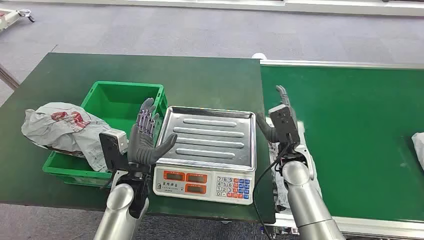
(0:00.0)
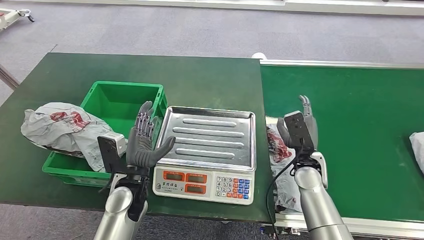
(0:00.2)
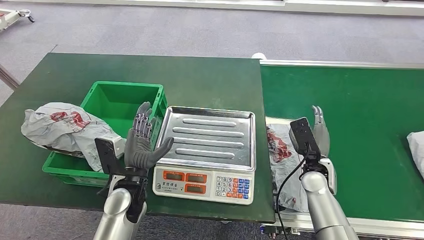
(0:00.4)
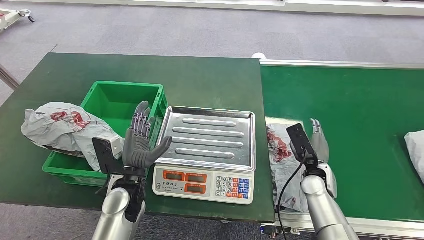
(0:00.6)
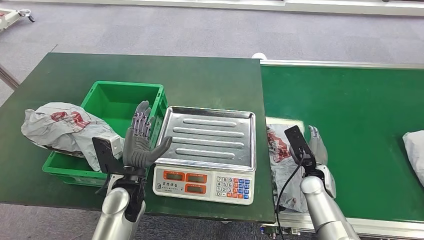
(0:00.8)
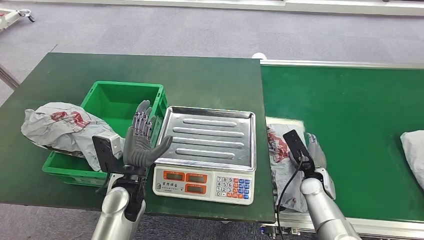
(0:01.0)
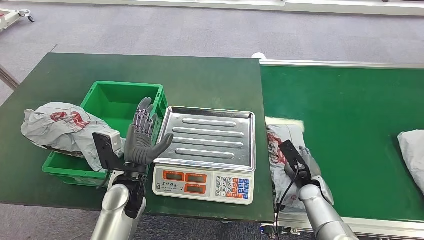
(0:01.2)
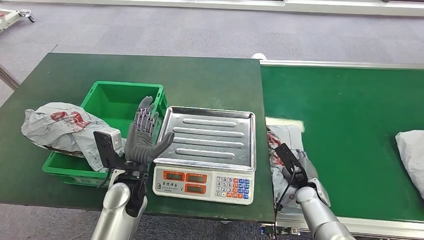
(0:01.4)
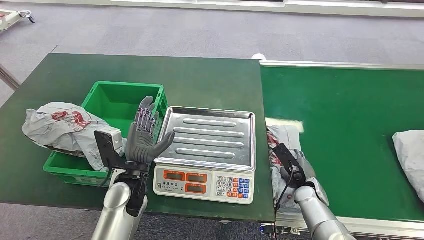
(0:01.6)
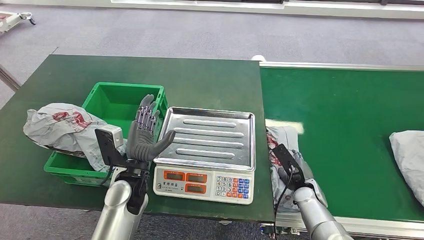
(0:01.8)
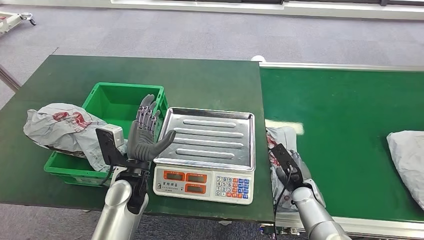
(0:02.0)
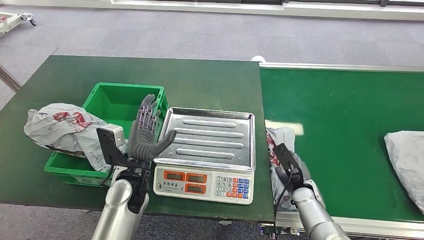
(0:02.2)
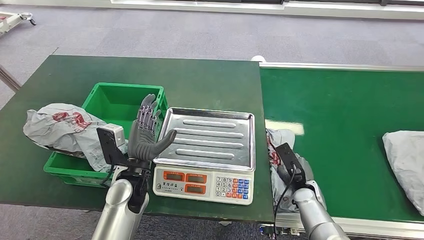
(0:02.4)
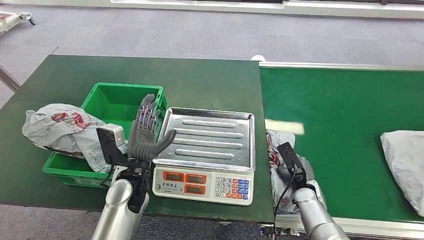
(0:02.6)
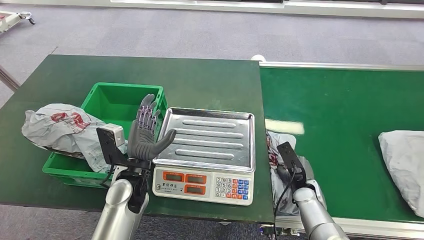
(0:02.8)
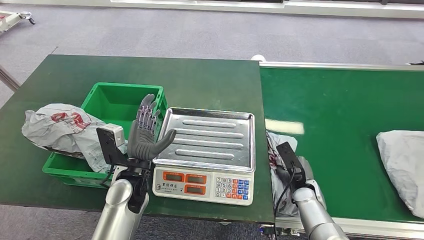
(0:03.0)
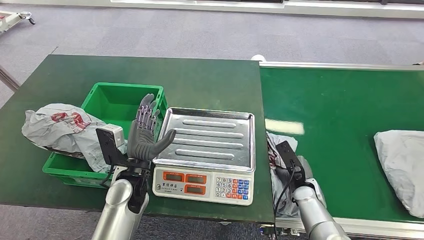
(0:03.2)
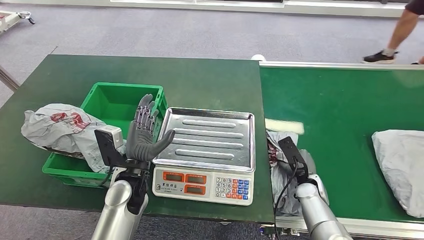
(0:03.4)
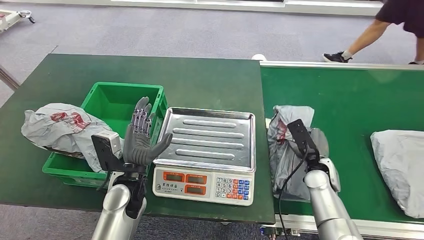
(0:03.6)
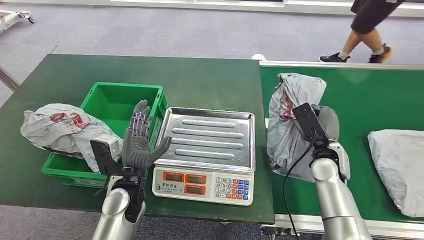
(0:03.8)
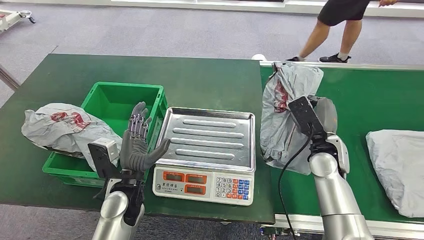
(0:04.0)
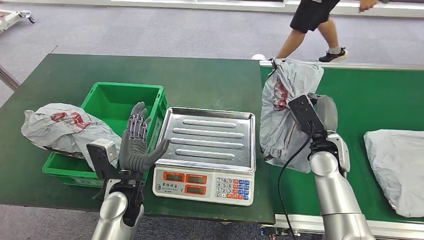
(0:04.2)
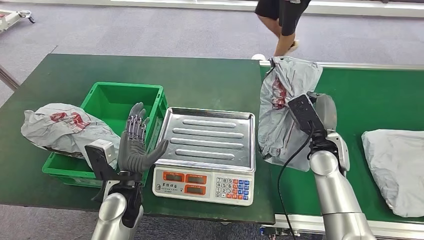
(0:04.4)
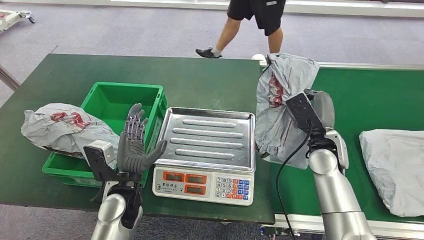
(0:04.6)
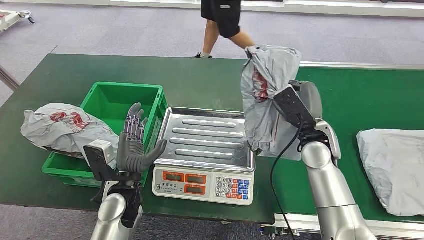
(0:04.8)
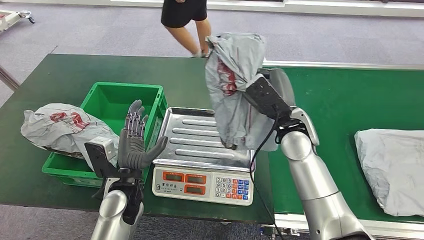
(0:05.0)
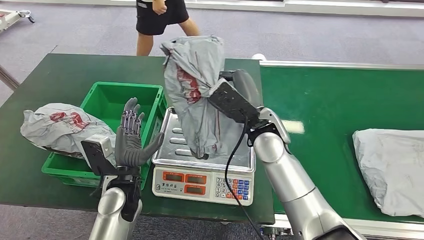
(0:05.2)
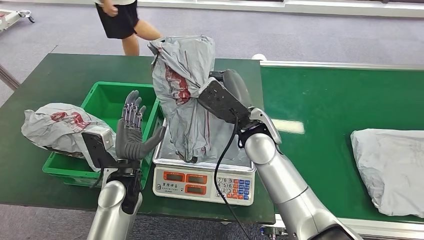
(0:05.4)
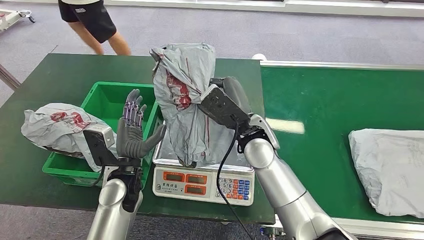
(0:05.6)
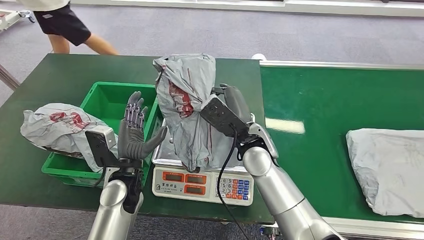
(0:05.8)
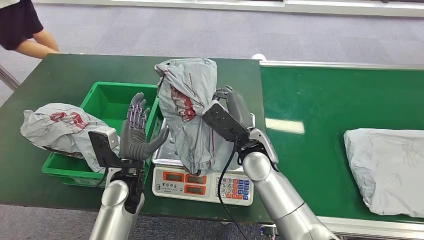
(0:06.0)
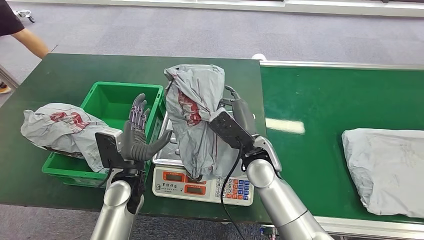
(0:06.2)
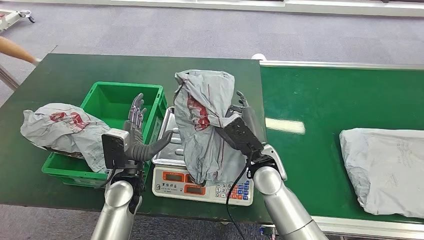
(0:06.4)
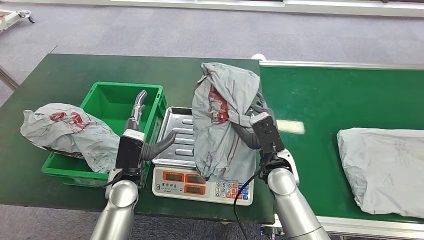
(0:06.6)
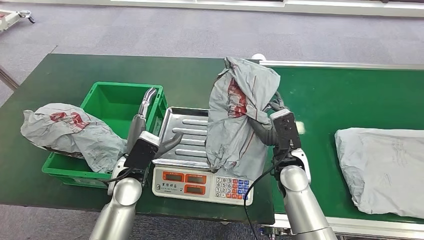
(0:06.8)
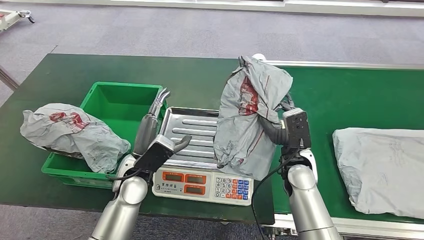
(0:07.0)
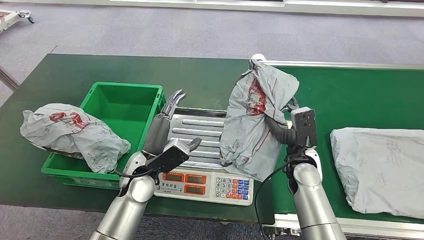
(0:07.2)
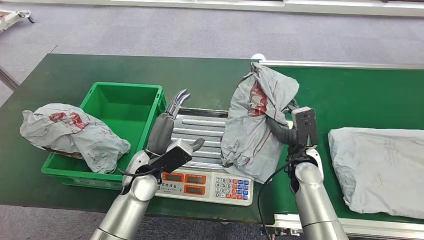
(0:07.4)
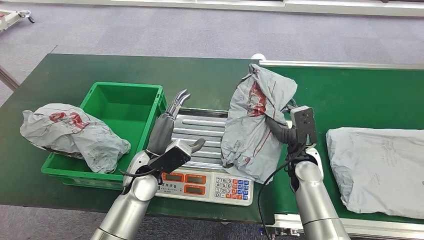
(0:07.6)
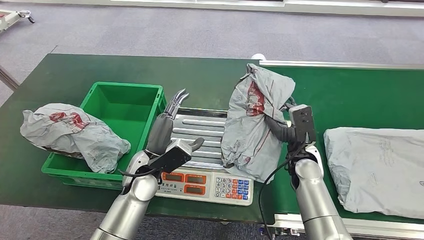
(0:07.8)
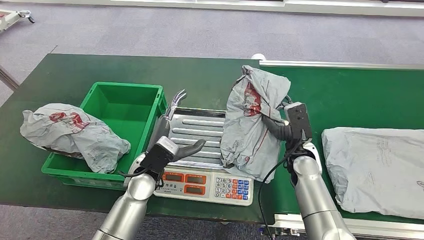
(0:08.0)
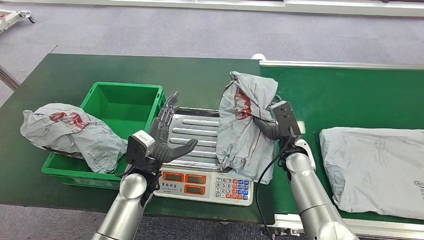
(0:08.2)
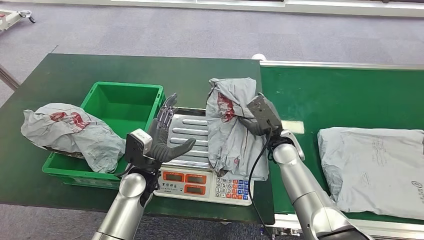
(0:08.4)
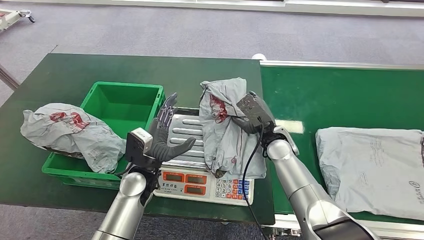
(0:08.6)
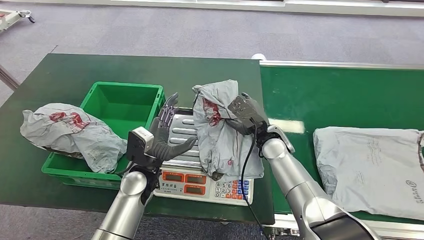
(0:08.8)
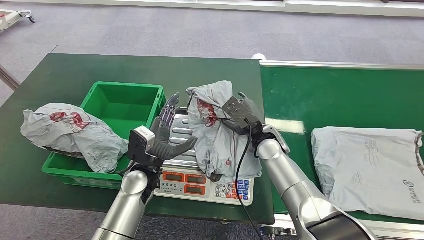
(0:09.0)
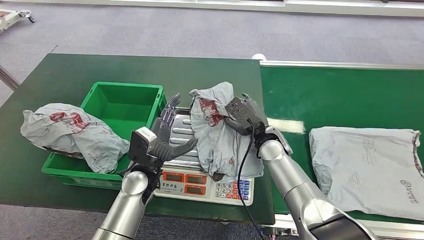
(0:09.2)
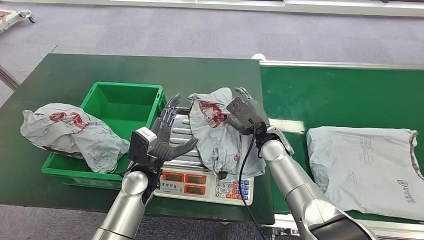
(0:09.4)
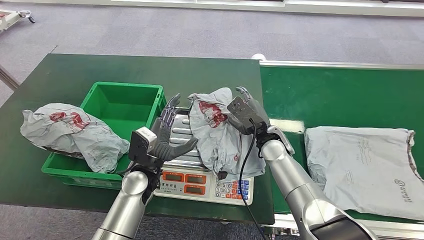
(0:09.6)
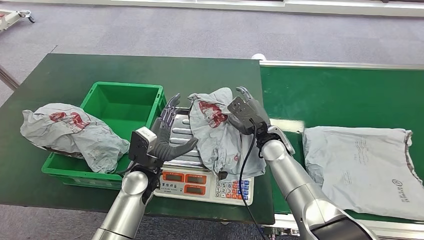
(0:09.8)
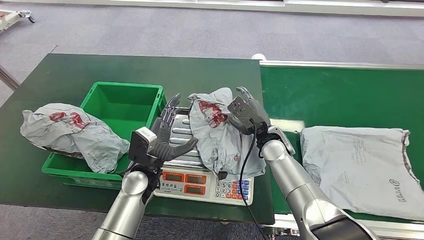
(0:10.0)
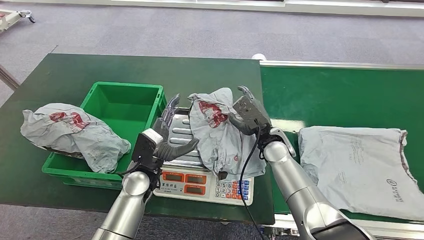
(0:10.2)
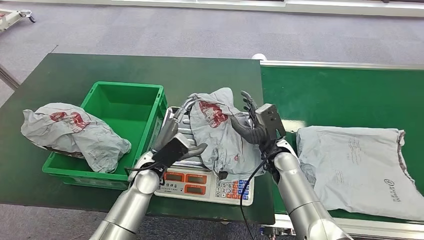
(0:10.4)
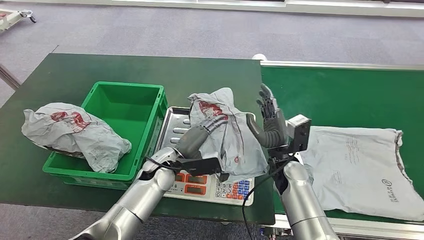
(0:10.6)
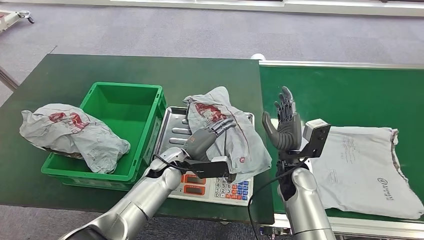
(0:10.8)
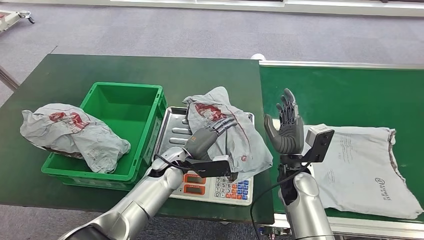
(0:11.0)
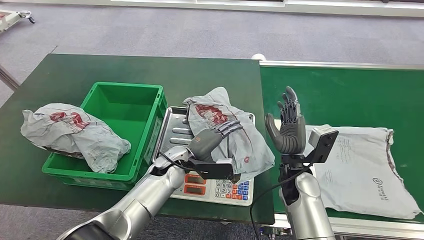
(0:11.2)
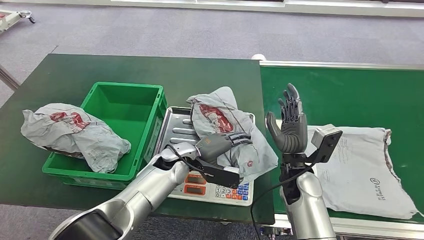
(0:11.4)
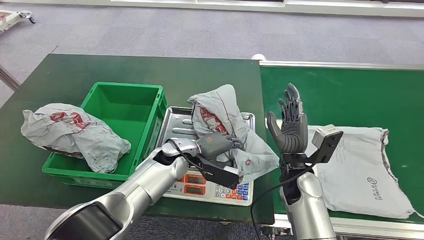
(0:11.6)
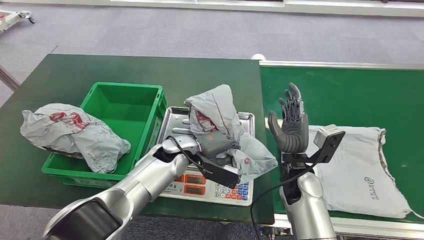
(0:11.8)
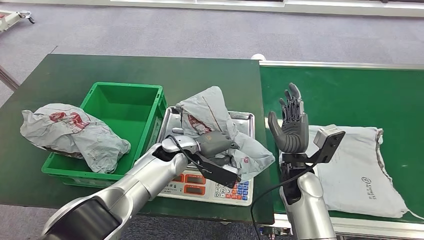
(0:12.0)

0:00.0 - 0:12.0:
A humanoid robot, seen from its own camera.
Step, 0:00.0 - 0:04.0: Pick up the package from the conveyor belt.
Step, 0:04.2 - 0:10.4: Place the package onto the inbound machine.
0:01.6 - 0:03.0: The hands make only small movements.

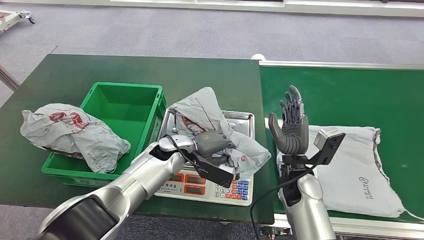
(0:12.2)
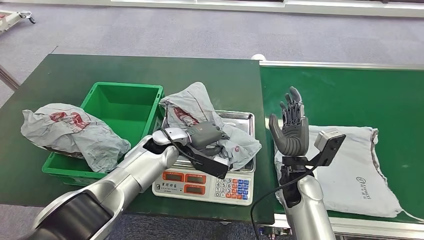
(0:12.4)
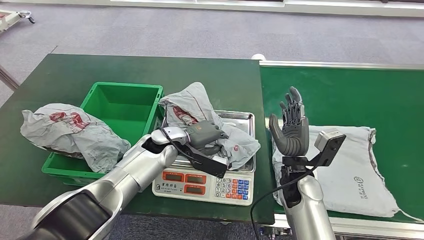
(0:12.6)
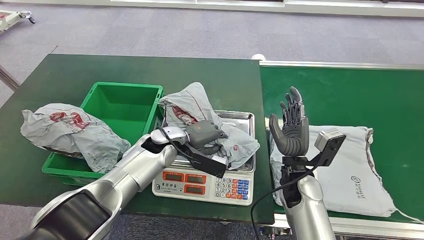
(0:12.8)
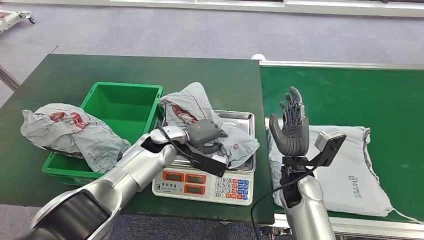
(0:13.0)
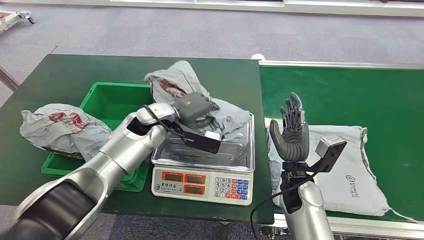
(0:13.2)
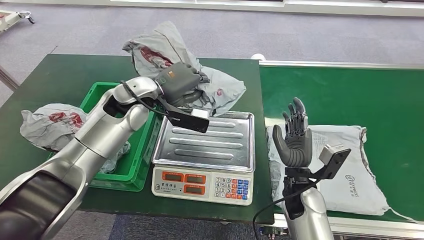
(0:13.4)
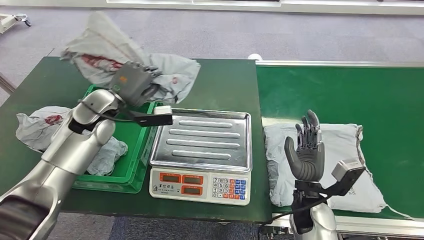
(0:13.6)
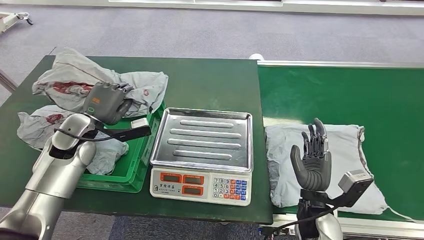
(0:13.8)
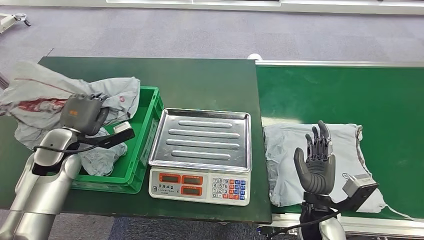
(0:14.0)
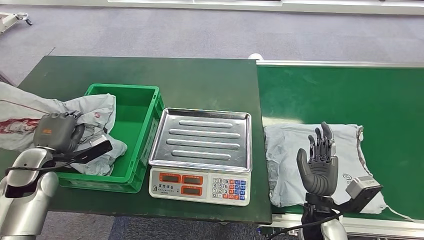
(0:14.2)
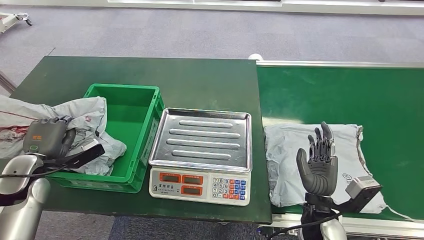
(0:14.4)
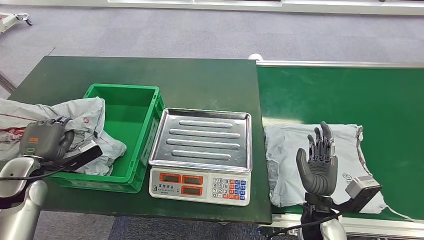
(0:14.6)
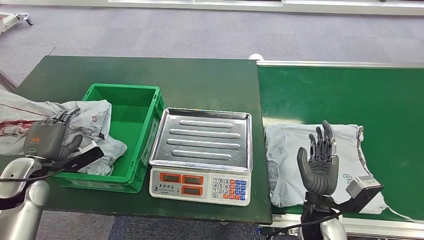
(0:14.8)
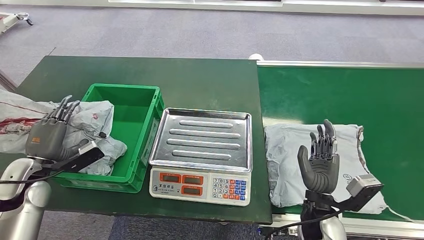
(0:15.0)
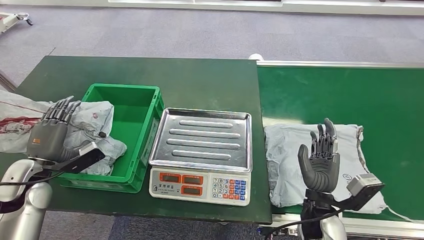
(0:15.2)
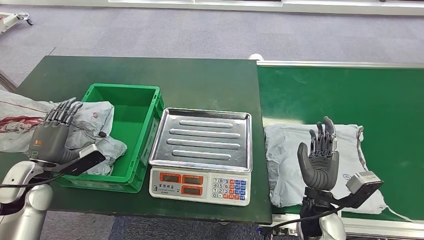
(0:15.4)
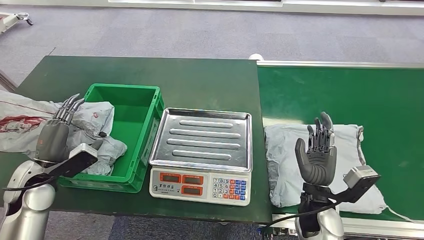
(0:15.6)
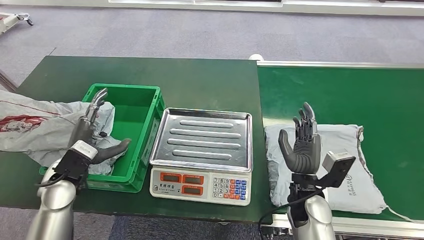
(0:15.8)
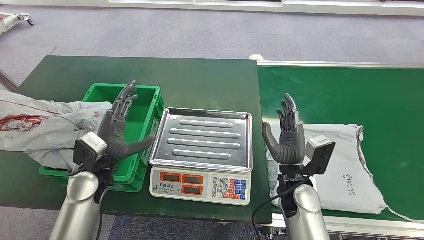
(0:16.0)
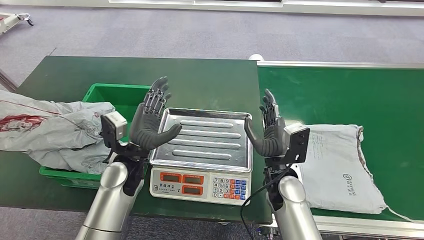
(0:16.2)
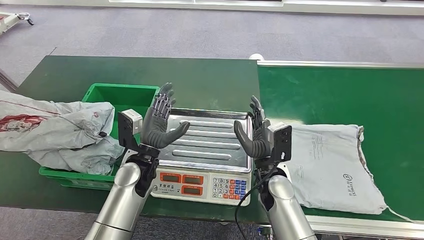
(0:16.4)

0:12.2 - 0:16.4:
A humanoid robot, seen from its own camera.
Step, 0:13.6 - 0:16.4: Place the package into the parcel locker.

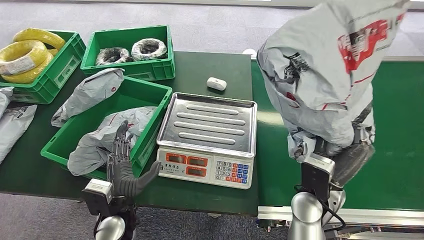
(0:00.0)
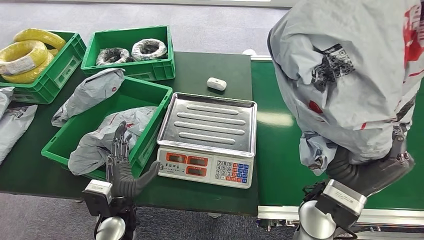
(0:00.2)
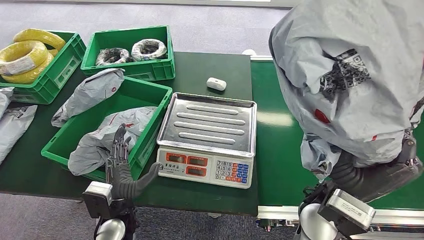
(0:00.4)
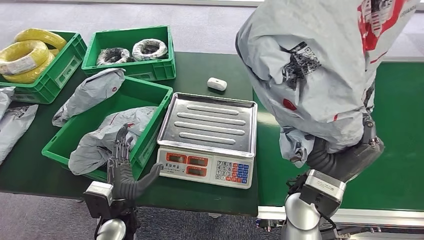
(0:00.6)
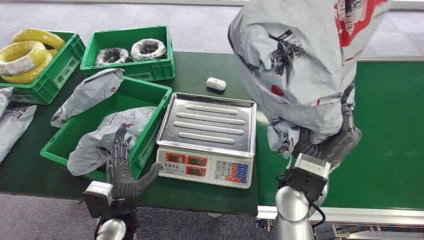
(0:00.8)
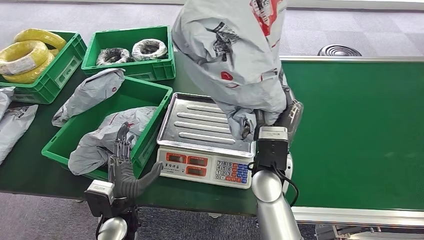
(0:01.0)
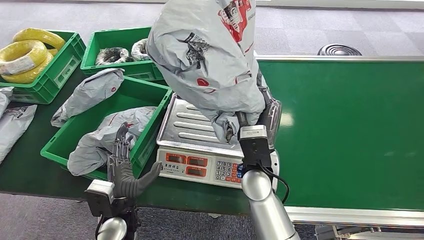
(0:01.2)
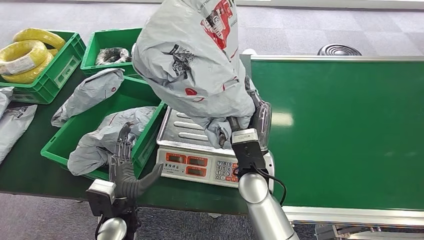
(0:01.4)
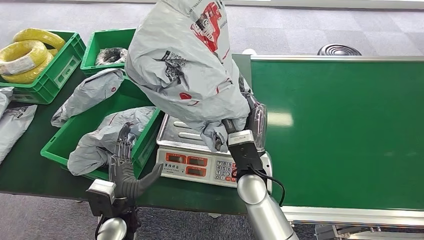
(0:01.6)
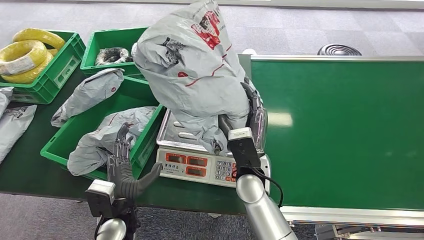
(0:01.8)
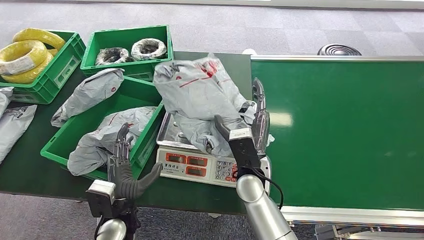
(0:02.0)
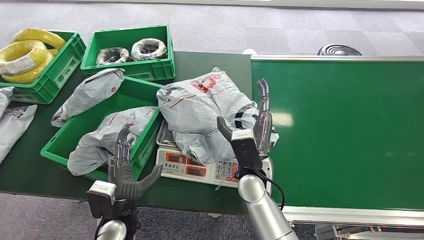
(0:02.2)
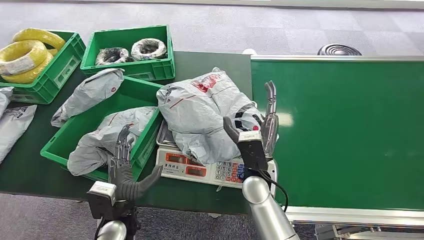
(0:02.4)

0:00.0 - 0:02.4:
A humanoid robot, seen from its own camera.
Step, 0:00.2 - 0:02.2: Place the package onto the inbound machine.
0:01.2 - 0:02.4: The right hand moves some 5 cm.
